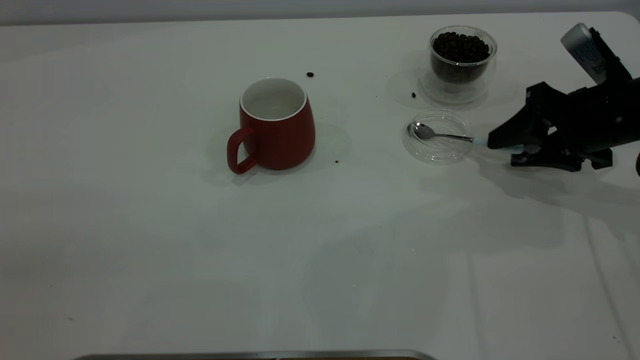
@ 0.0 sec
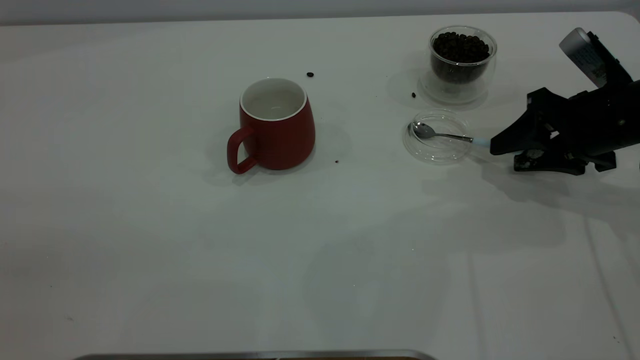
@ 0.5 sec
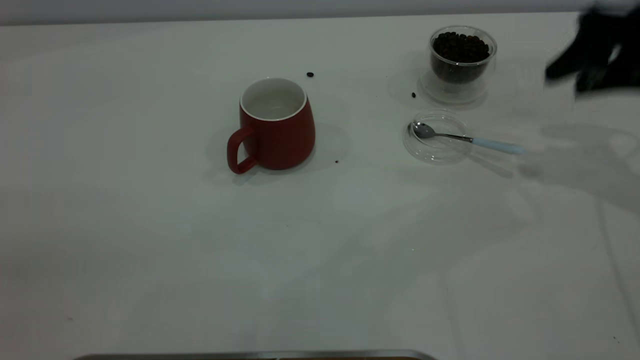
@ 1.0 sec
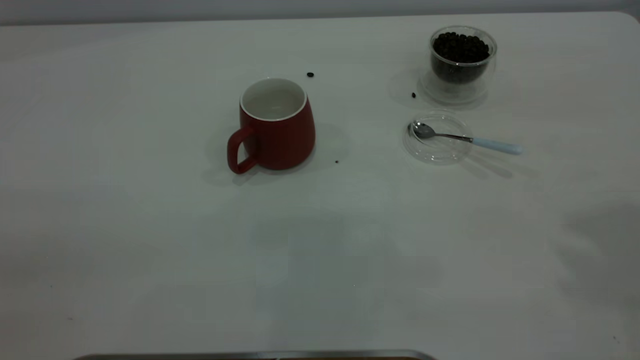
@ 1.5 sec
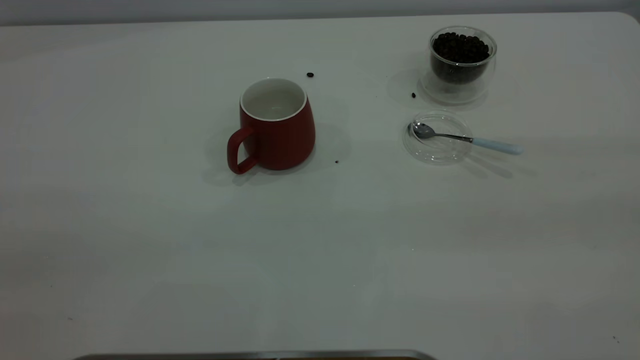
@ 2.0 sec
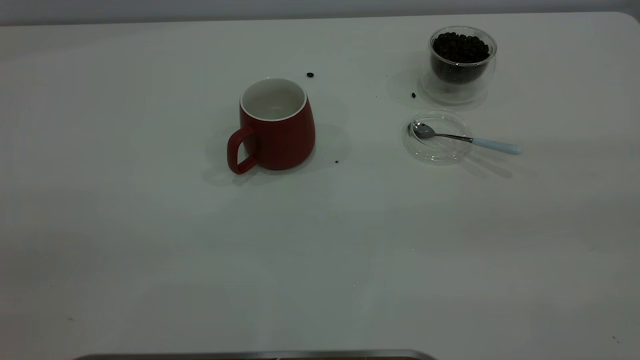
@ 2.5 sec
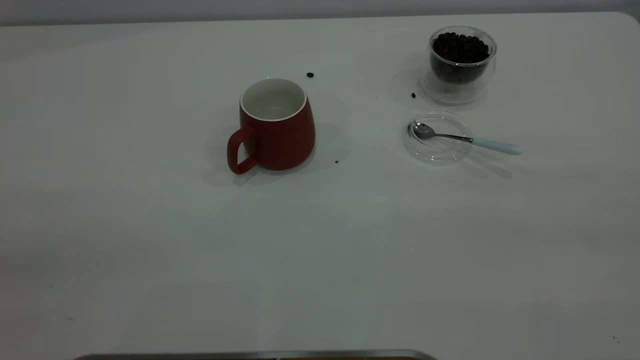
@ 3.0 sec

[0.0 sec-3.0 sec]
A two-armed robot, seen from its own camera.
Task of the whole recording: the left gripper place the red cup in the center of the table, the right gripper take the blue spoon from the cup lid and scoop out the coffee beans from the coffee cup and put them into the red cup, the right gripper put the spoon back into the cup lid.
0.0 sec to 1.5 sec: The right gripper shifts approximately 35 cm upward and backward.
